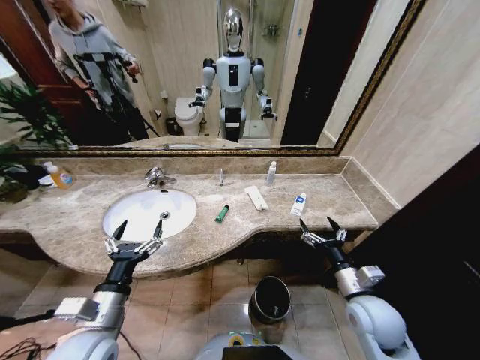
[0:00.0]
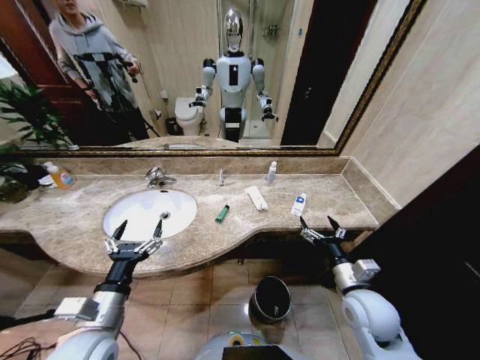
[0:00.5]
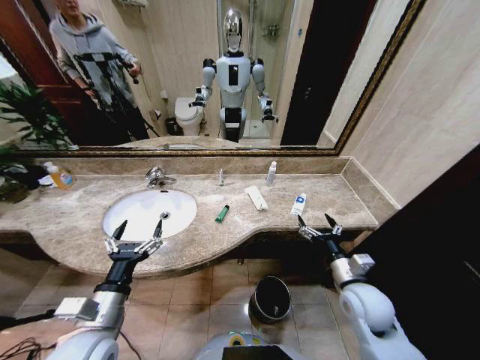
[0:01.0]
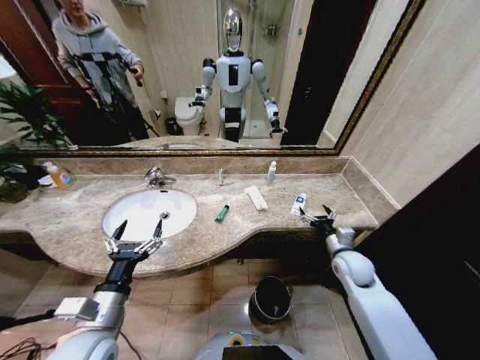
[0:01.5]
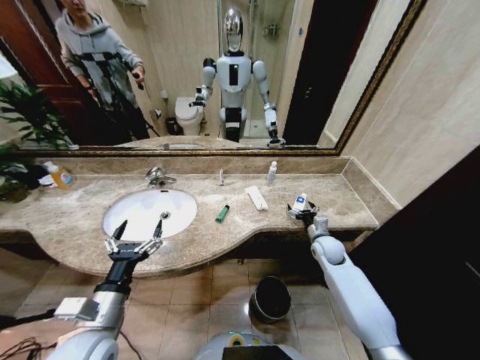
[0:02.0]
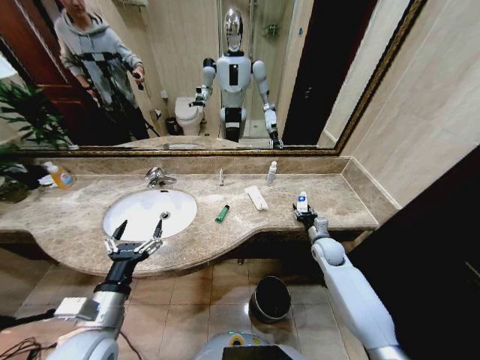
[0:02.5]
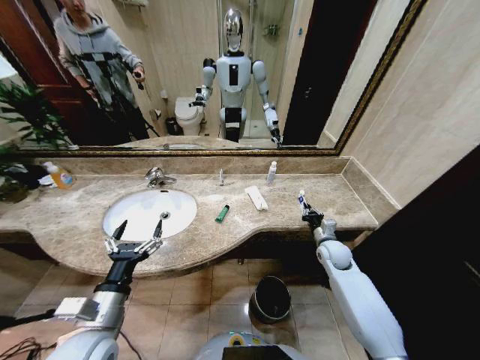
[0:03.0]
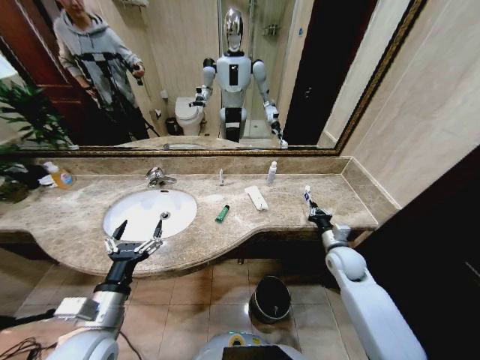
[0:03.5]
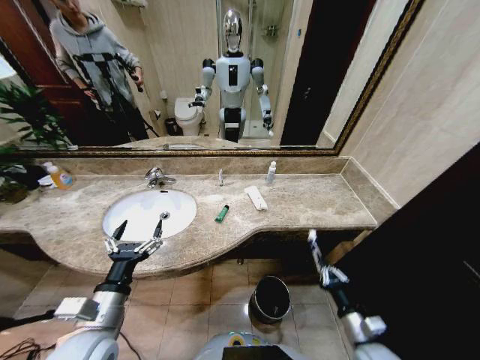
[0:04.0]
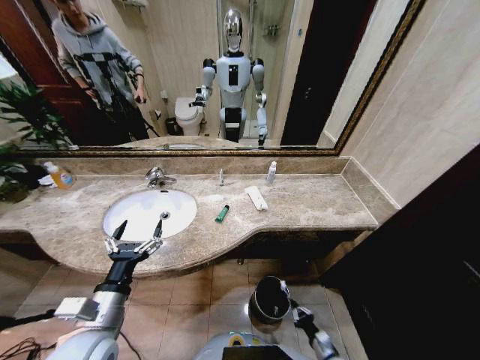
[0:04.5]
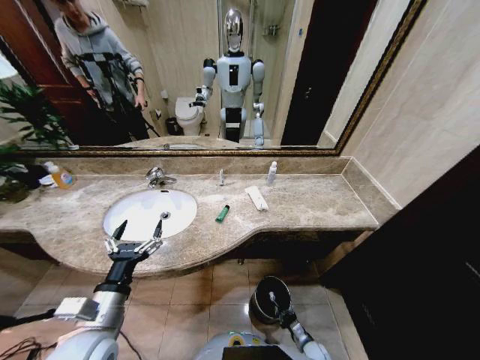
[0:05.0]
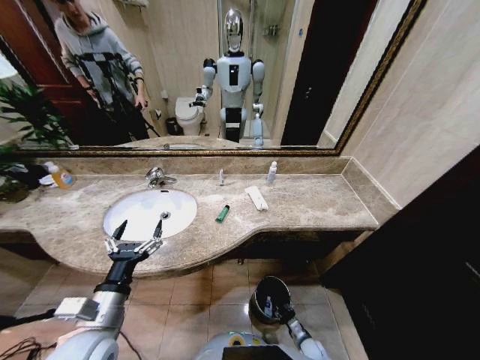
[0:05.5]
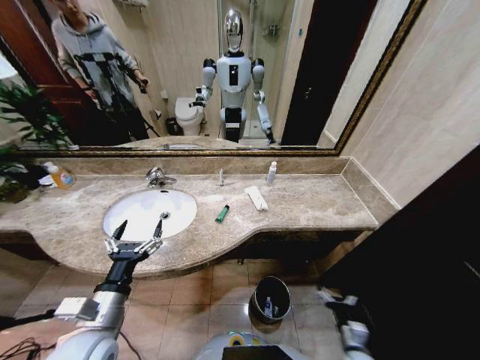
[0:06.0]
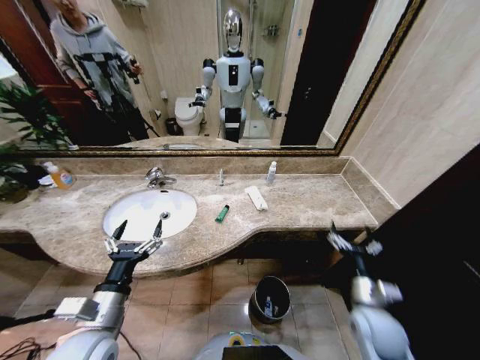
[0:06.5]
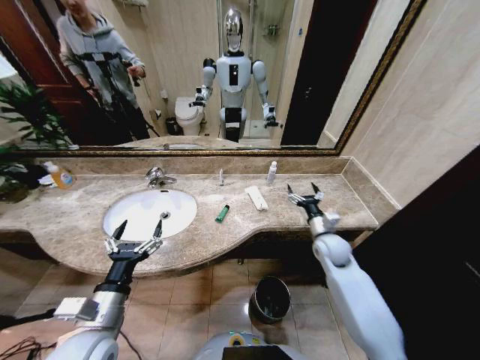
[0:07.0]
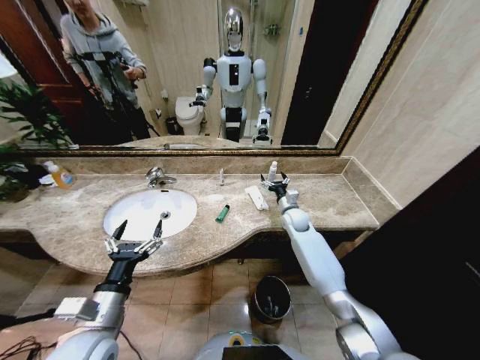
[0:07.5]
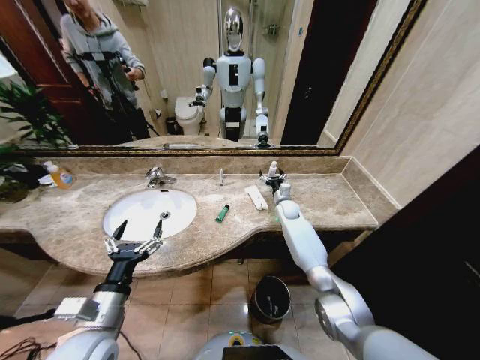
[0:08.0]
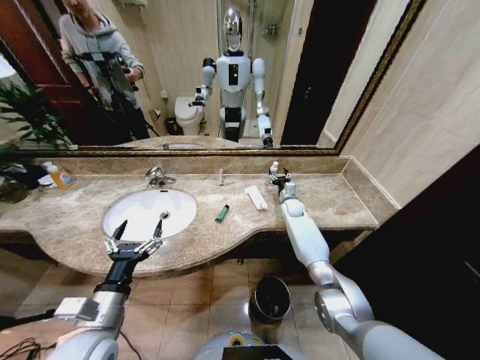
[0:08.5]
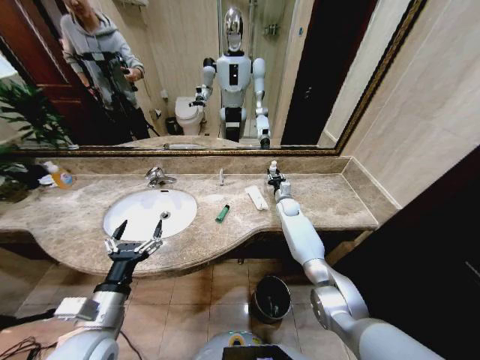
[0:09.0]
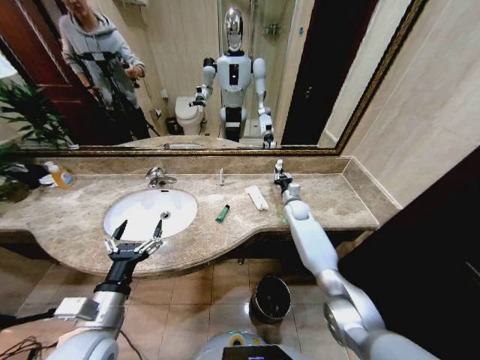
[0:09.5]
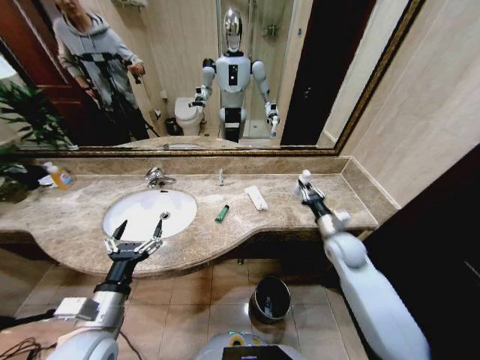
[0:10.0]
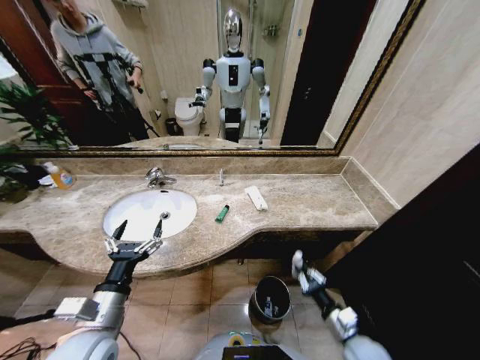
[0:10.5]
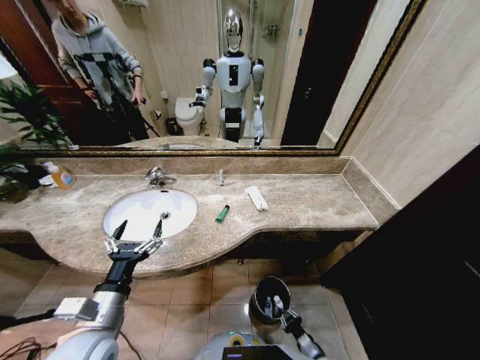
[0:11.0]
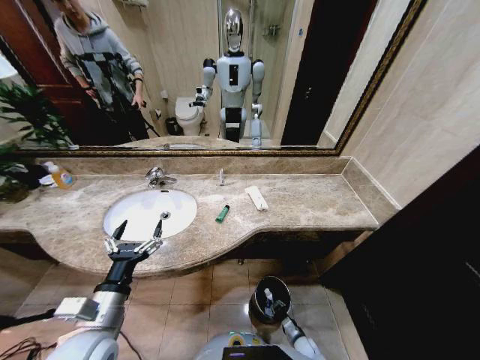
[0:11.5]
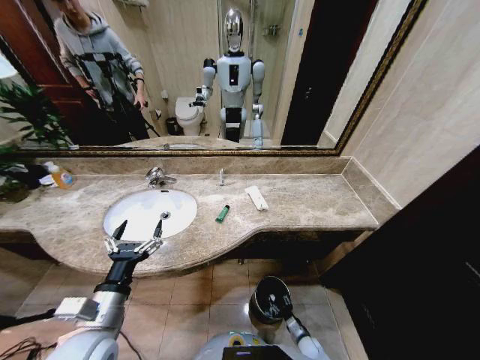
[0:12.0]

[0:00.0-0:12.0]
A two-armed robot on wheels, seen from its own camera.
Task of the whole recording: Pick up the trash from the sink and place it in the trash bin.
0:02.0 to 0:04.0: The right gripper moves backward, about 25 cm, and closes its fingers.
0:04.0 to 0:06.0: The right gripper goes about 10 cm downward, and opens.
0:06.0 to 0:08.0: The right gripper goes roughly 50 cm forward.
0:08.0 to 0:10.0: The right gripper goes some 25 cm backward and to the right, and closes its fingers.
0:10.0 to 0:12.0: The right gripper travels downward and backward by approximately 40 cm, and opens.

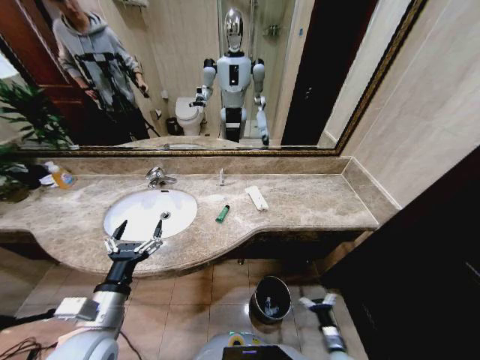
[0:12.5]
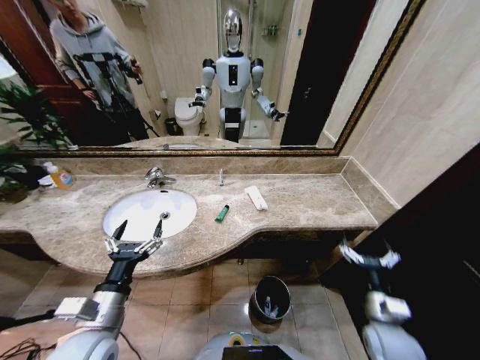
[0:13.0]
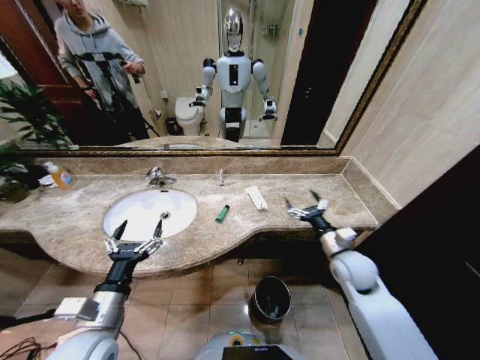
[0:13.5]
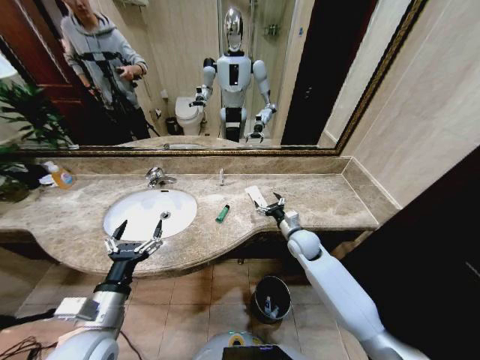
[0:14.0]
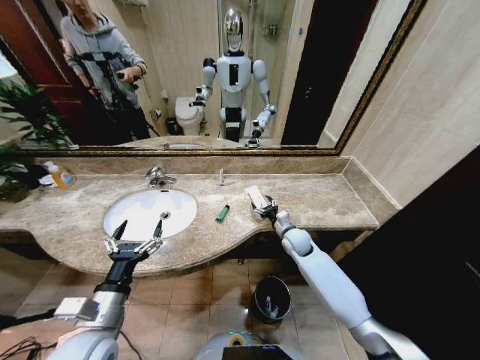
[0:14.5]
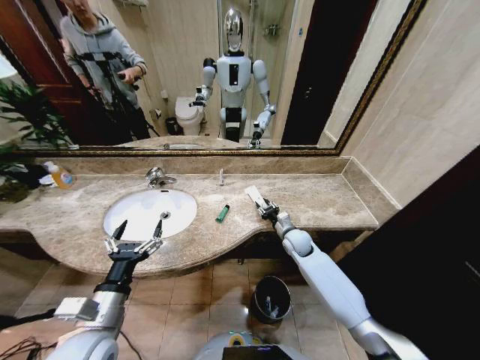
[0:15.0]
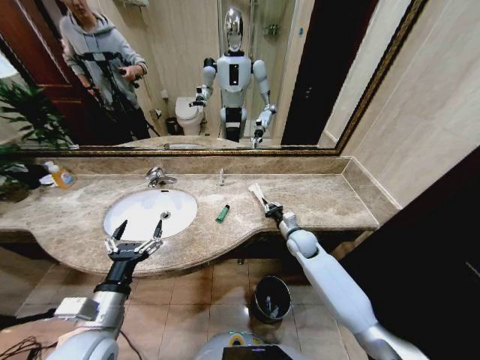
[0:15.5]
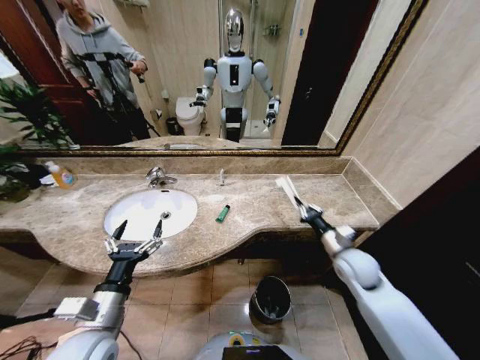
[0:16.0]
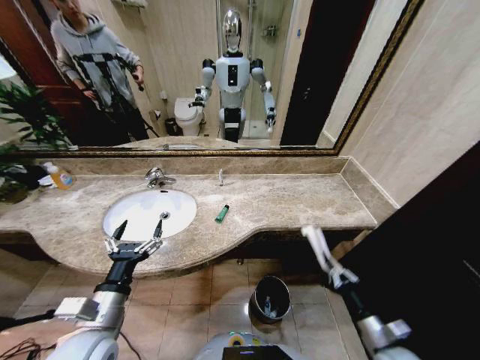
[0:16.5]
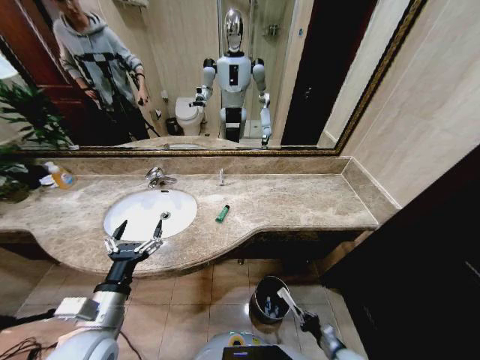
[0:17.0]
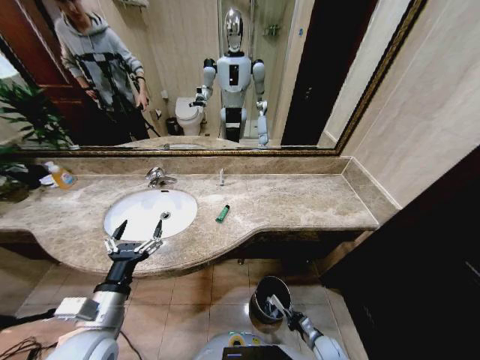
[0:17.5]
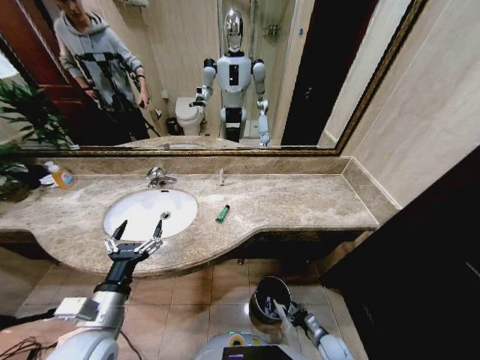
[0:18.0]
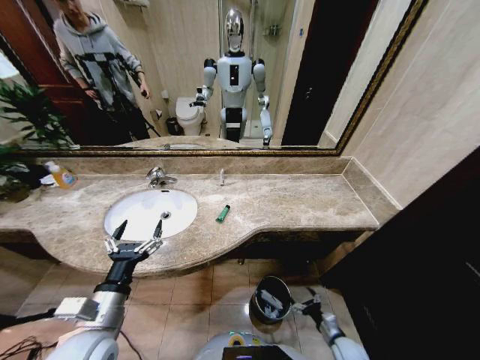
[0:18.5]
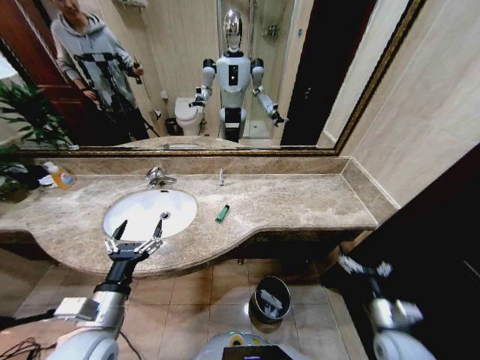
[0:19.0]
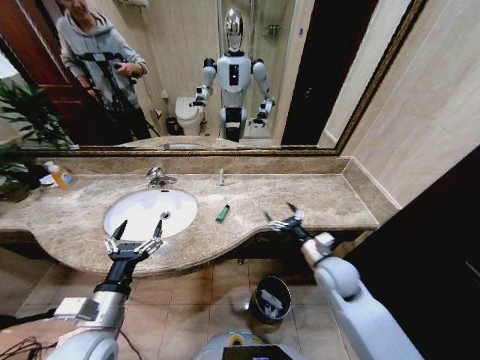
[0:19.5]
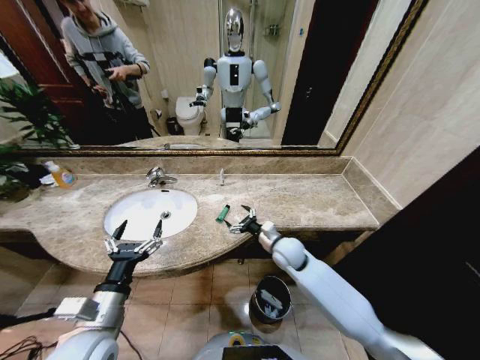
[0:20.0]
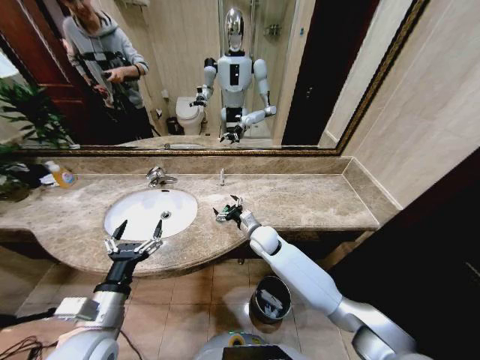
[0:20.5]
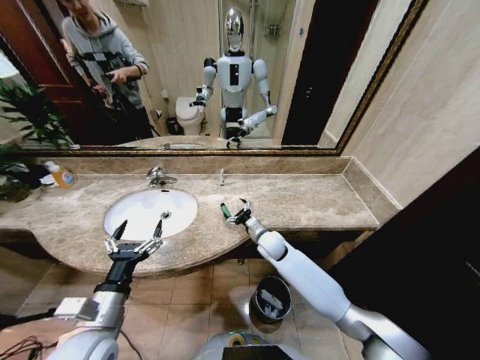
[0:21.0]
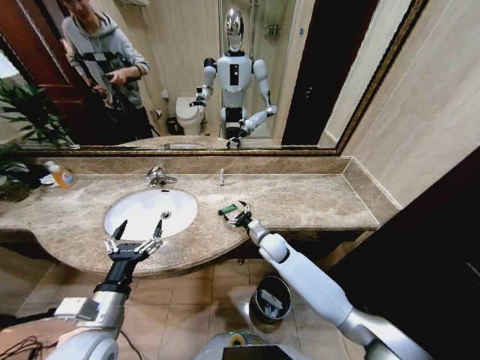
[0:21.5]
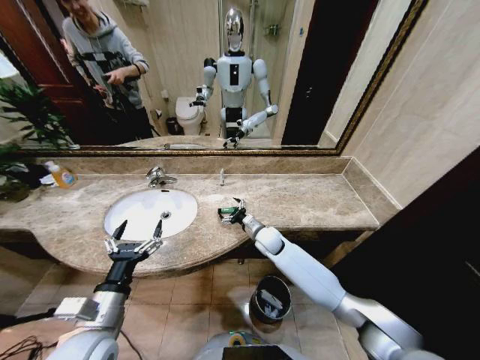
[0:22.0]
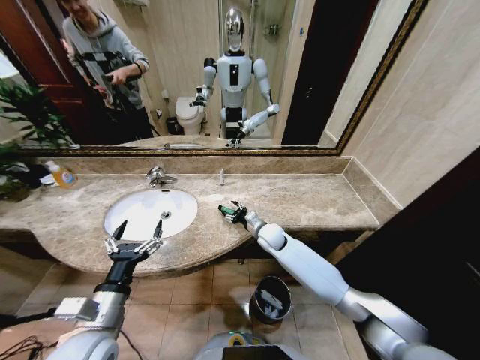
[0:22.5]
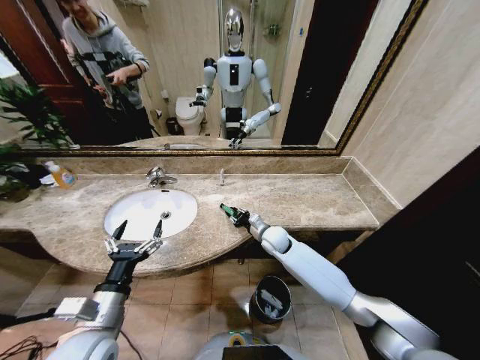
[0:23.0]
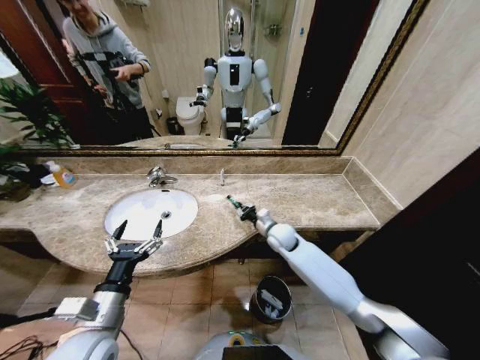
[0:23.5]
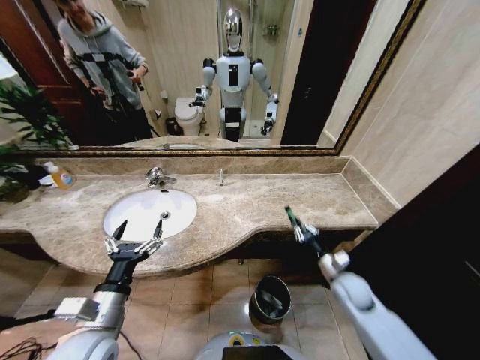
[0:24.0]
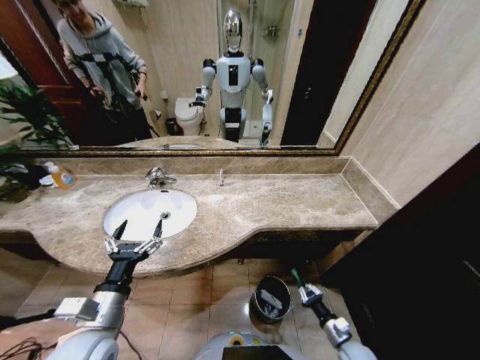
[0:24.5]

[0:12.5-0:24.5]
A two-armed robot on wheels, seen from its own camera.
Task of the whole recording: Pick up the trash from the sink and place it in the trash bin.
0:12.5 to 0:14.5: The right gripper heads forward and upward, covering about 40 cm.
0:14.5 to 0:16.5: The right gripper heads backward and to the right, covering roughly 35 cm, and closes its fingers.
0:16.5 to 0:18.5: The right gripper is displaced downward by some 20 cm, and opens.
0:18.5 to 0:20.5: The right gripper heads forward, to the left and upward, covering roughly 50 cm.
0:20.5 to 0:22.5: The grippers move only a little.
0:22.5 to 0:24.5: The right gripper heads backward, to the right and downward, covering roughly 40 cm, and closes its fingers.

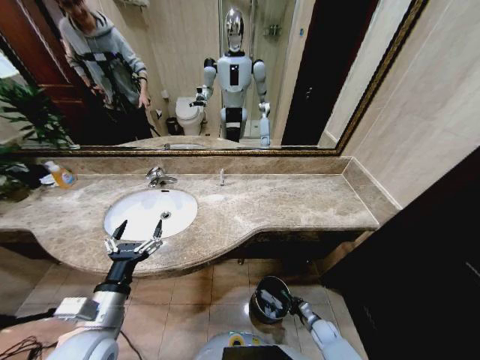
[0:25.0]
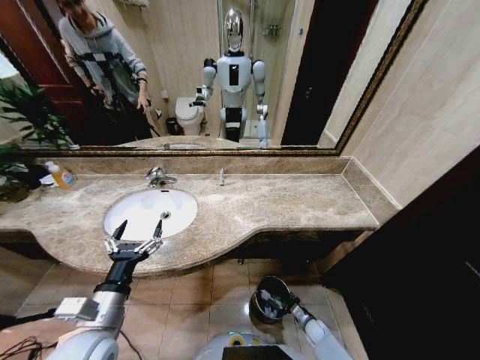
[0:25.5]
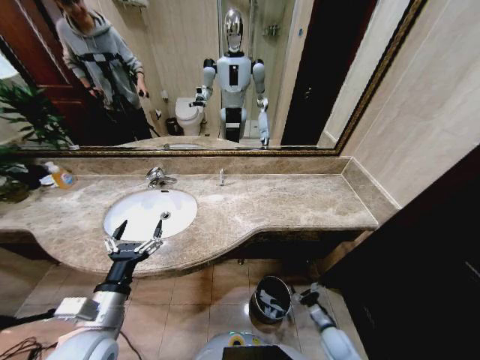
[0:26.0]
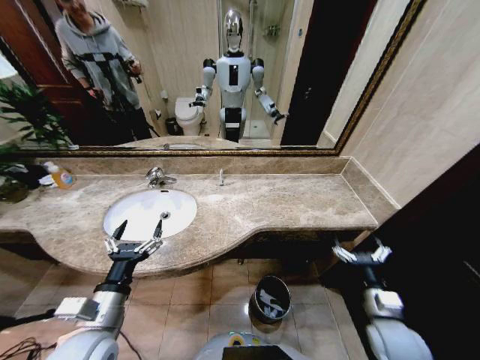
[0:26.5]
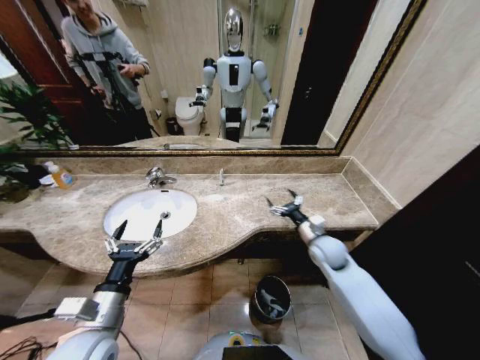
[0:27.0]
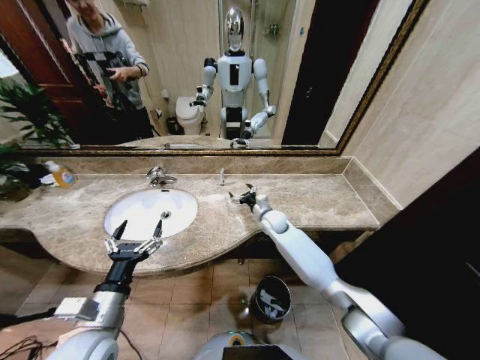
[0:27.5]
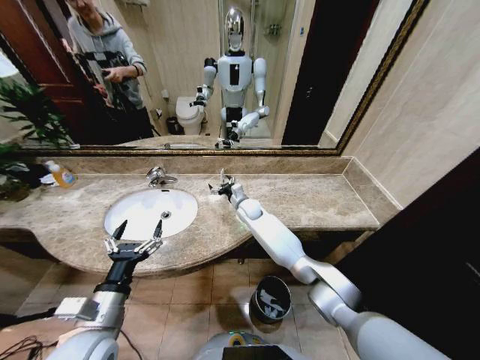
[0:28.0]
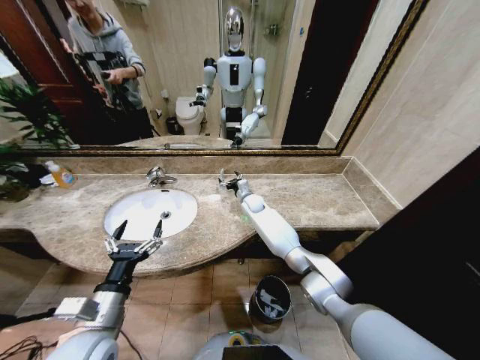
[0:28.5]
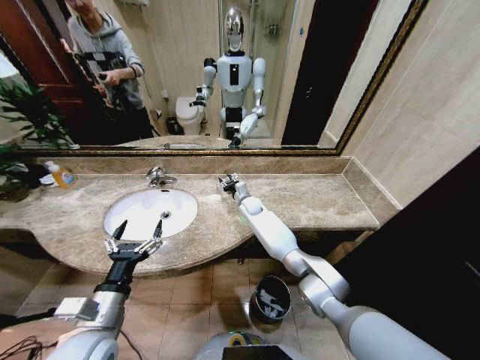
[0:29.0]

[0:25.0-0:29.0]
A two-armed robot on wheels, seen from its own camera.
Task of the whole recording: Pick up the trash from the sink and place it in the trash bin.
0:25.0 to 0:27.0: The right gripper travels upward and forward by roughly 40 cm, and opens its fingers.
0:27.0 to 0:29.0: The right gripper moves forward and to the left, roughly 30 cm, and closes up.
